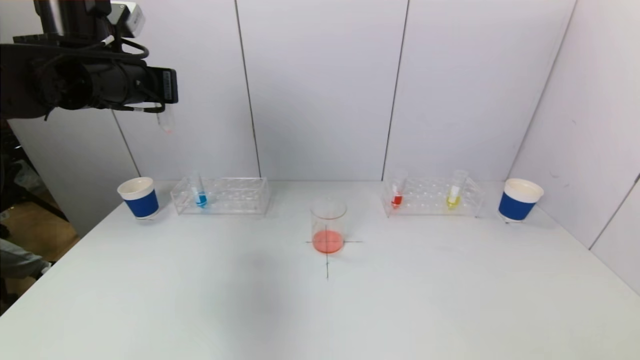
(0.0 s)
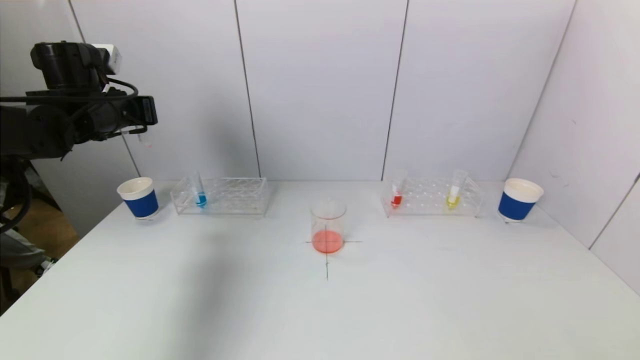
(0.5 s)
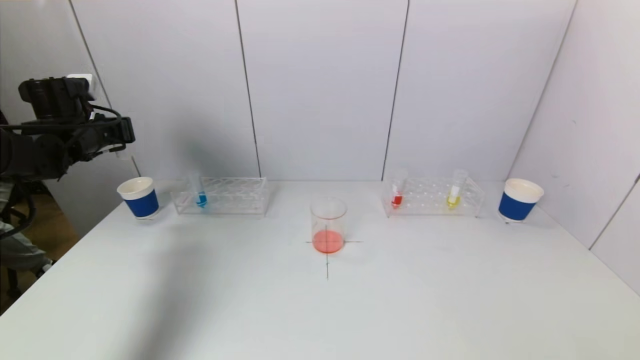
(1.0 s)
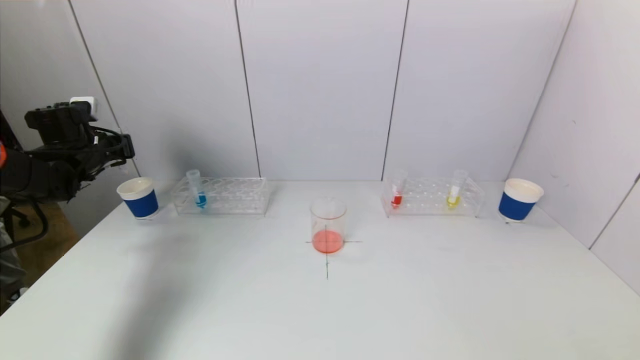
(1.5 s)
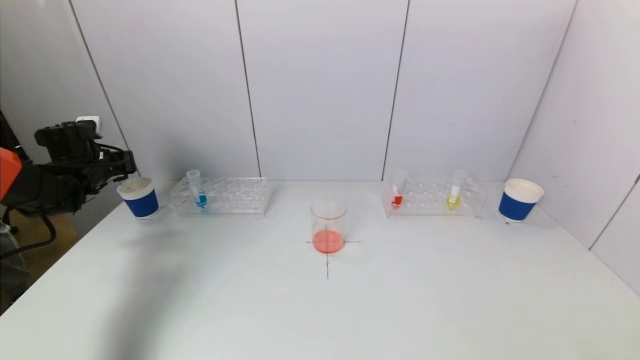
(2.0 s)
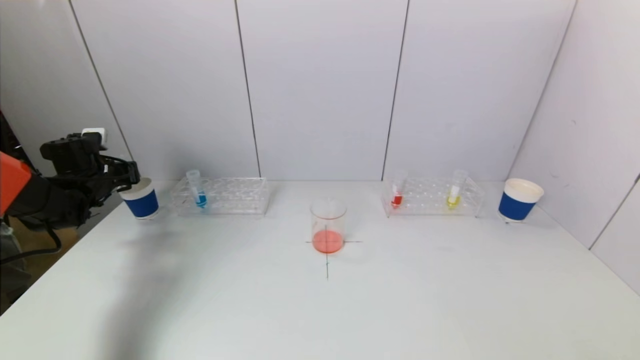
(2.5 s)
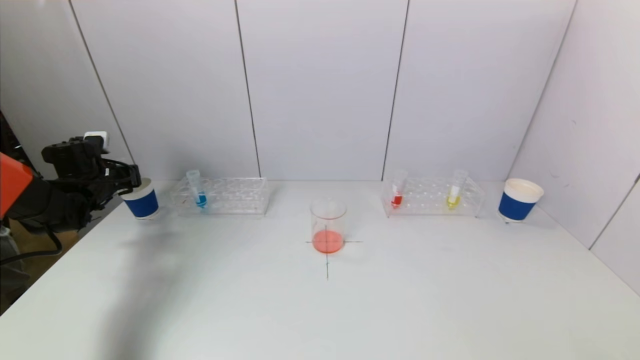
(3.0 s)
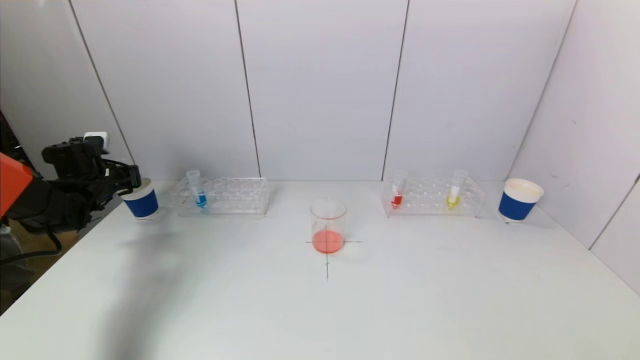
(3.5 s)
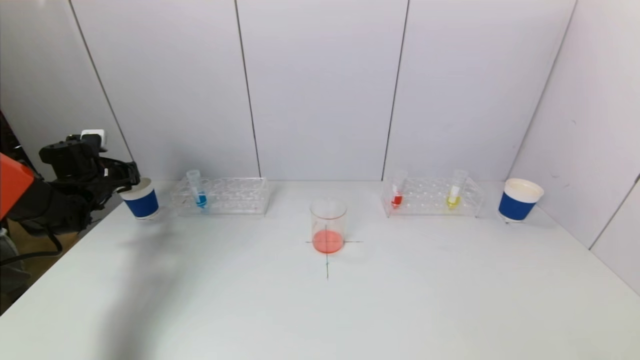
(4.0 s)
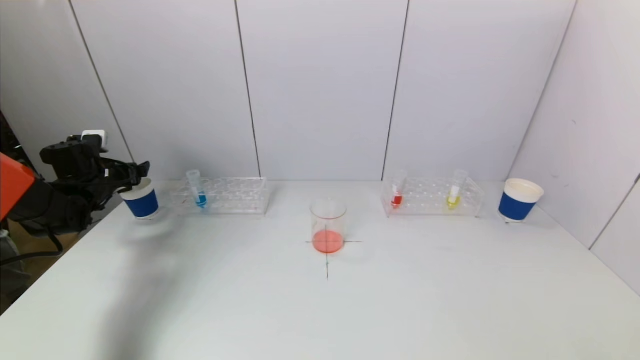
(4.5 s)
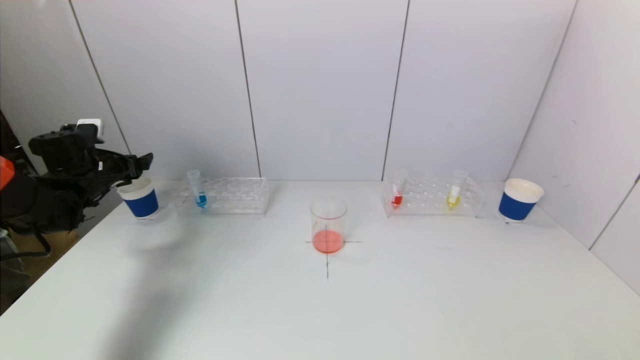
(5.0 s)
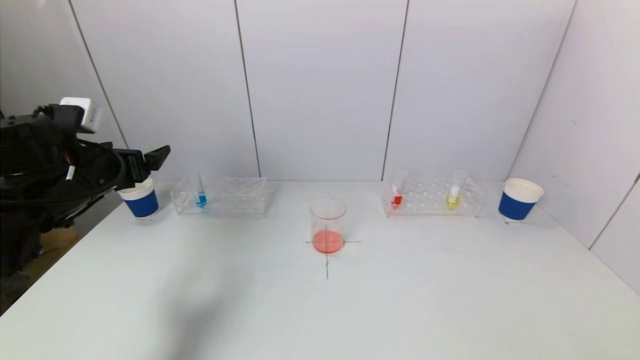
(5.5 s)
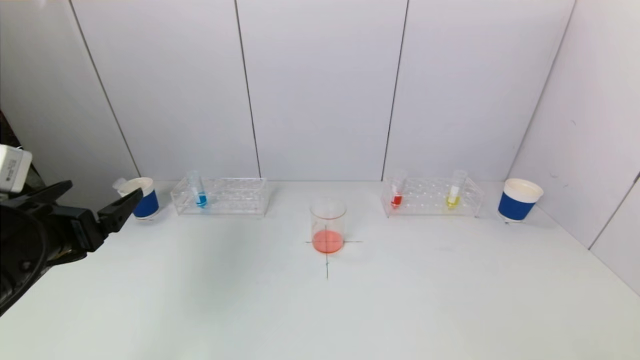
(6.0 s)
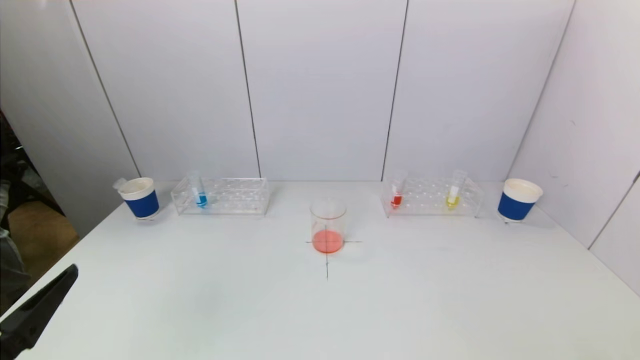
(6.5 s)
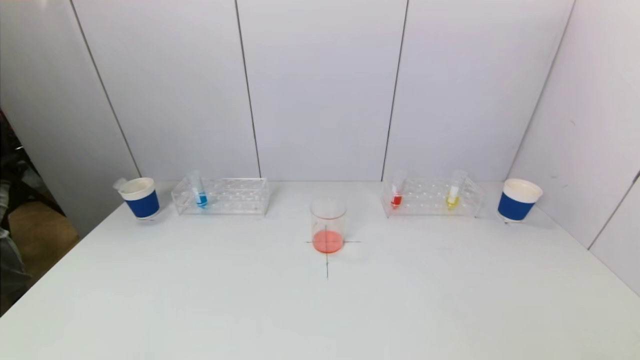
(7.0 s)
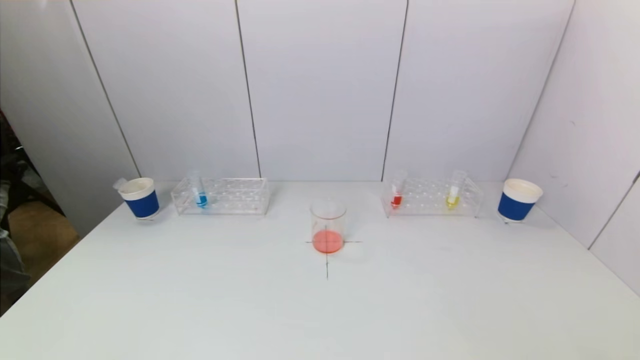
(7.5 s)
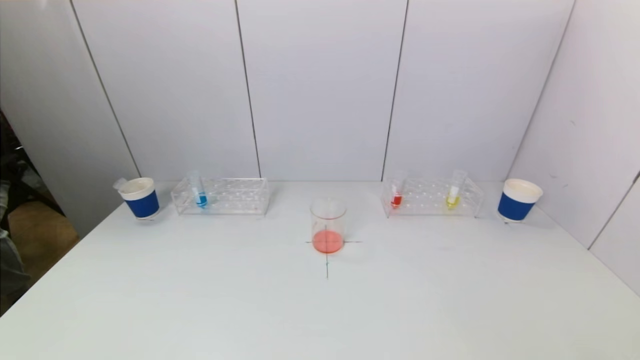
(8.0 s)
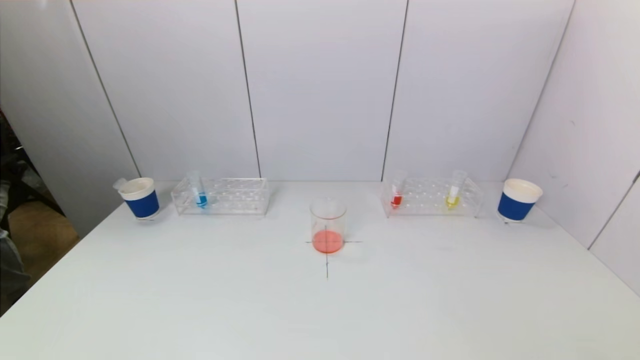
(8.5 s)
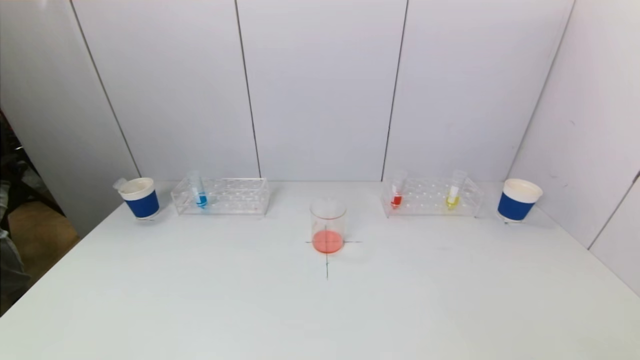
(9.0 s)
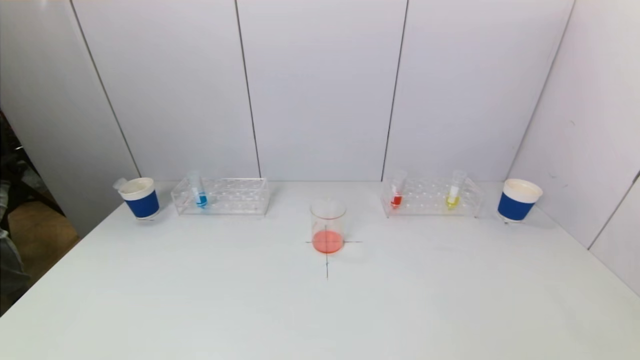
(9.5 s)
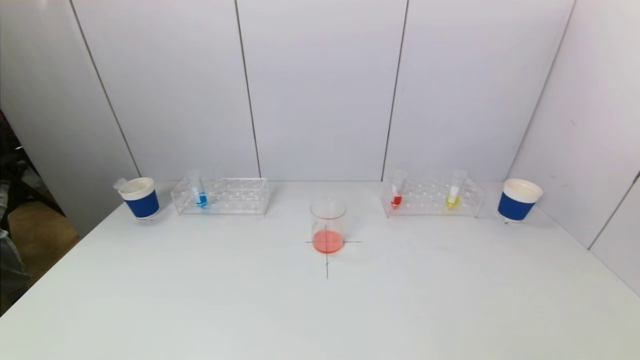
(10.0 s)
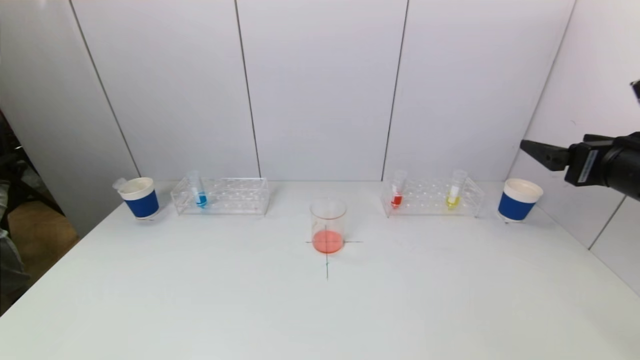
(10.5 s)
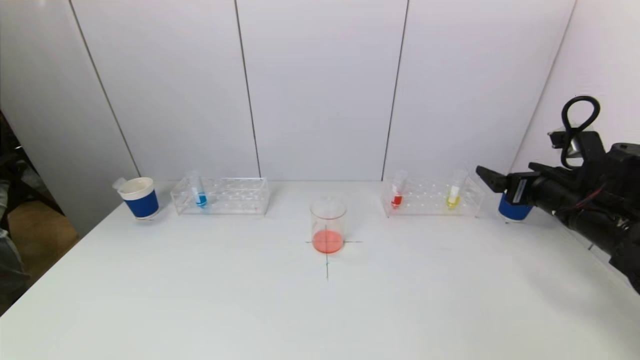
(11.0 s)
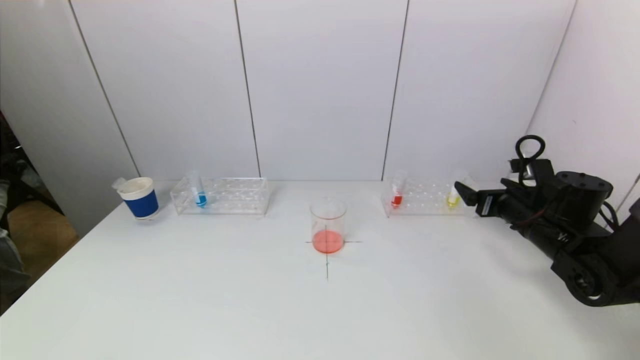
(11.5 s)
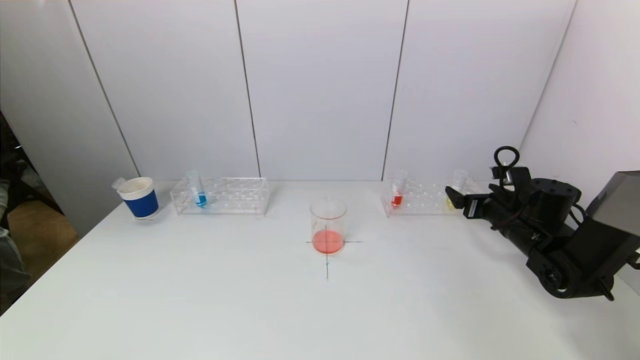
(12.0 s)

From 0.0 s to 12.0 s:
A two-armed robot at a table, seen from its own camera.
Task of the whole recording: pick up a test tube with pigment on left test tube rack and a test tube with pigment on right test tube rack by grippers and pour them into the beaker.
Step, from 0.0 s to 4.5 s: Place the test tube into the paper cup with the left gripper.
From 0.0 s to 2.0 s: The left gripper travels downward, to the left and forward by roughly 25 cm.
From 2.0 s to 4.0 s: There are only small adjustments of the grippers.
From 4.0 s to 6.0 s: The left gripper goes about 30 cm backward and to the right, and opens its fingers.
From 6.0 s to 8.0 s: The left gripper is displaced backward and downward by some 20 cm.
From 10.0 s to 12.0 s: The right gripper moves forward and downward, approximately 35 cm.

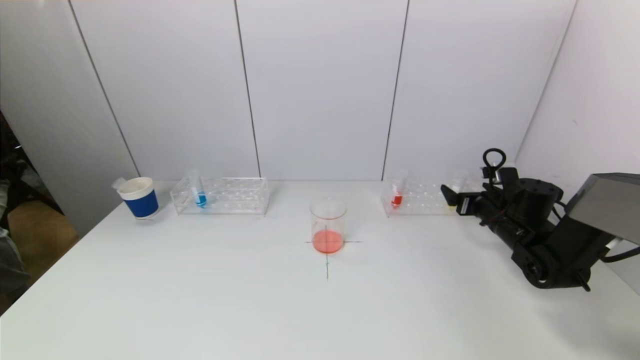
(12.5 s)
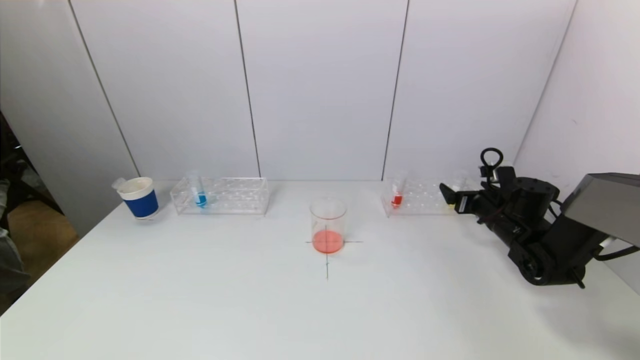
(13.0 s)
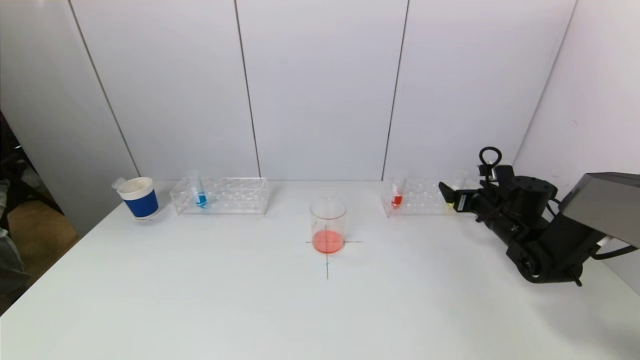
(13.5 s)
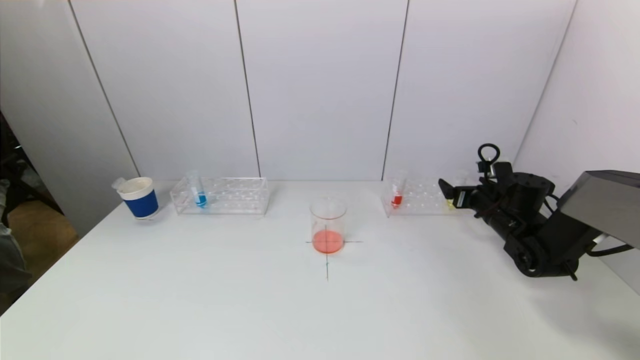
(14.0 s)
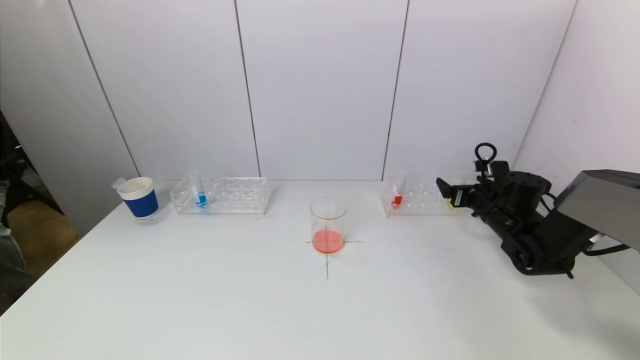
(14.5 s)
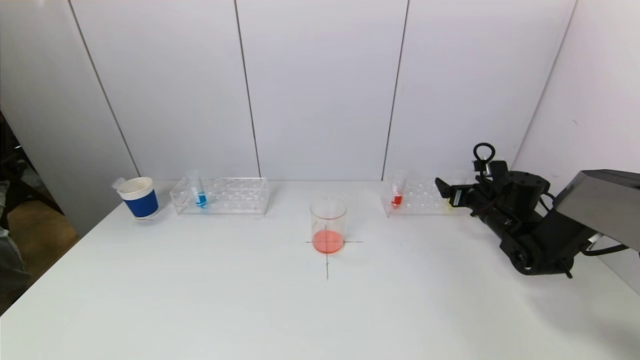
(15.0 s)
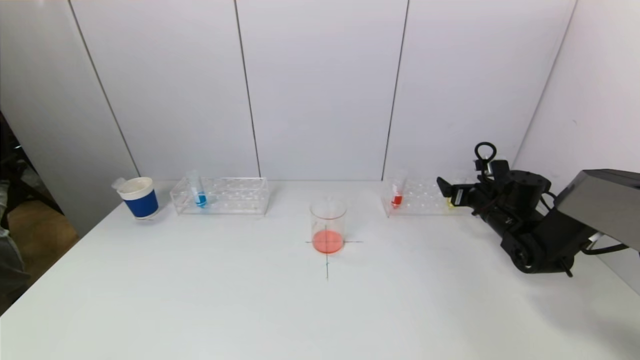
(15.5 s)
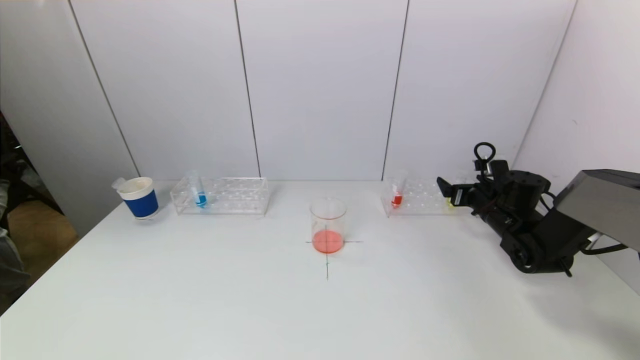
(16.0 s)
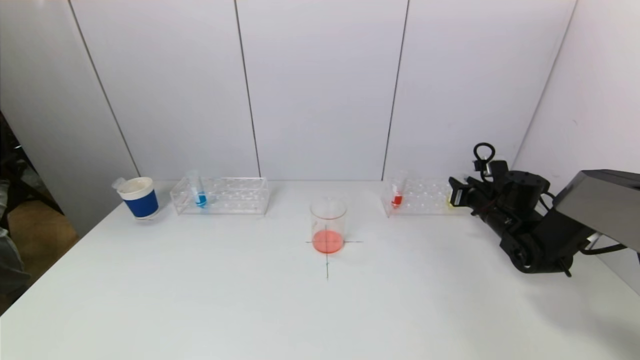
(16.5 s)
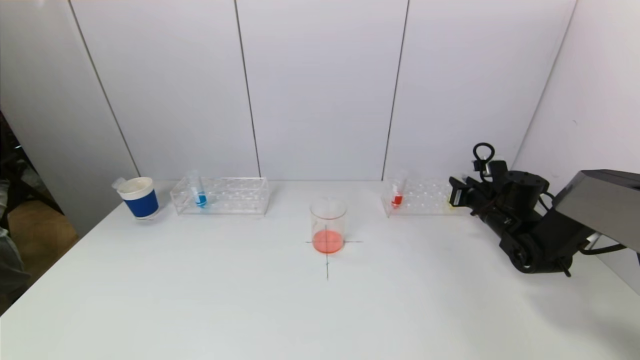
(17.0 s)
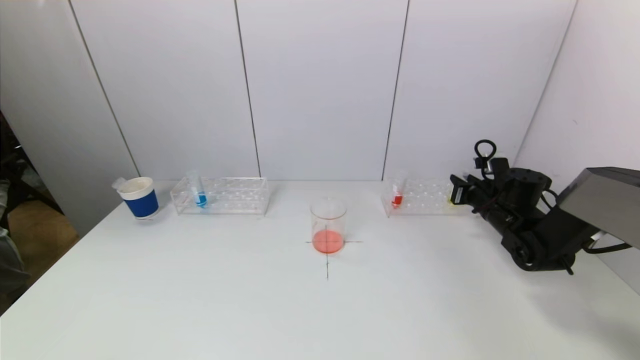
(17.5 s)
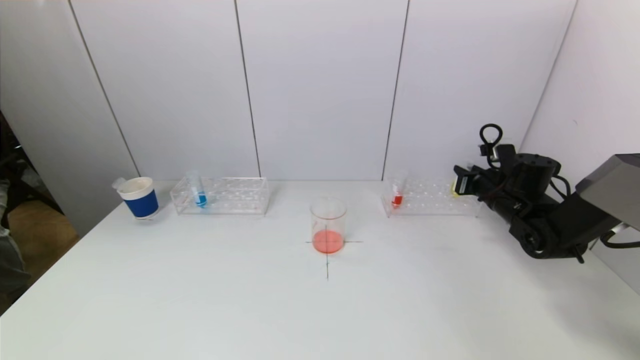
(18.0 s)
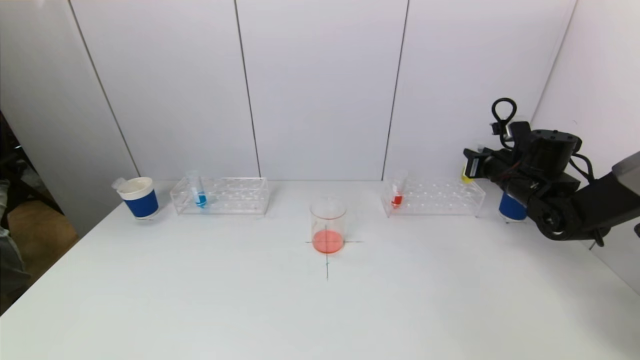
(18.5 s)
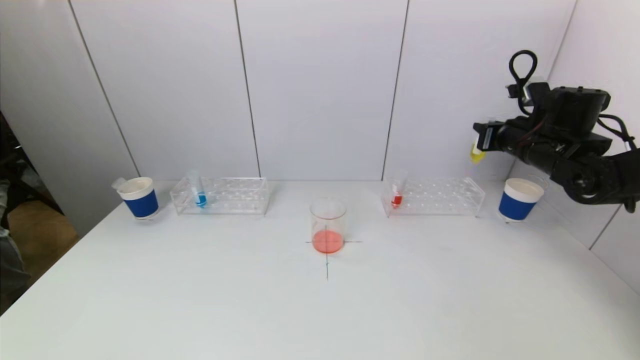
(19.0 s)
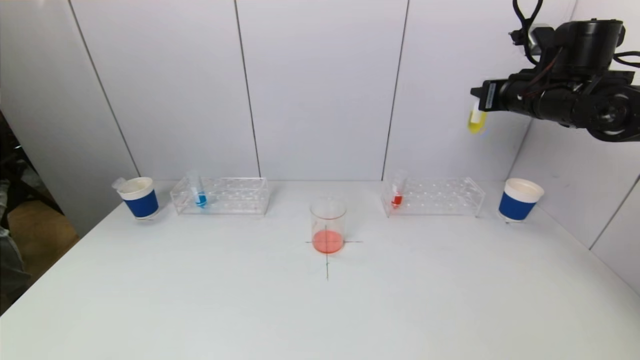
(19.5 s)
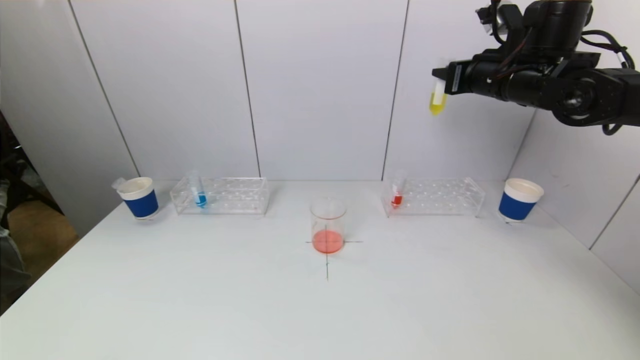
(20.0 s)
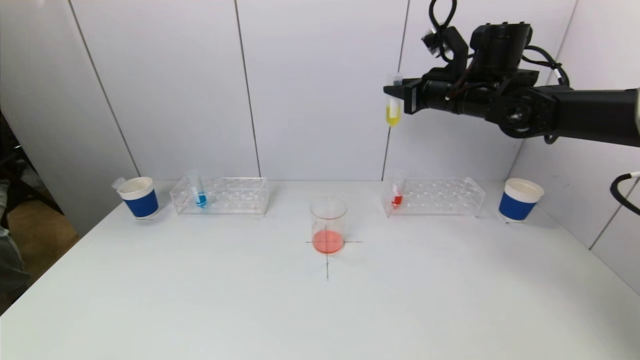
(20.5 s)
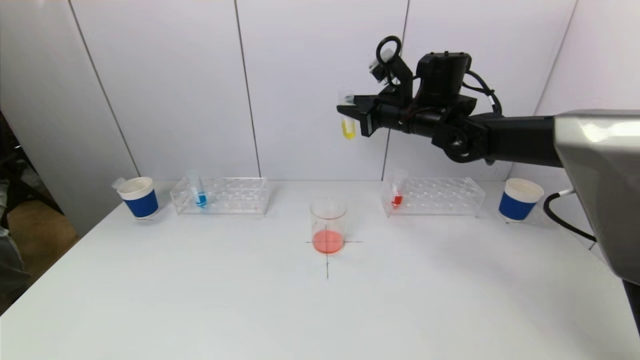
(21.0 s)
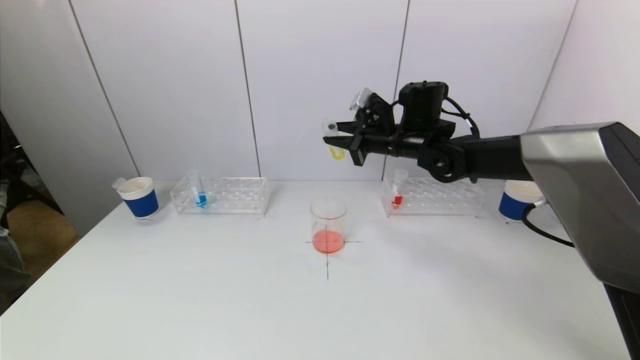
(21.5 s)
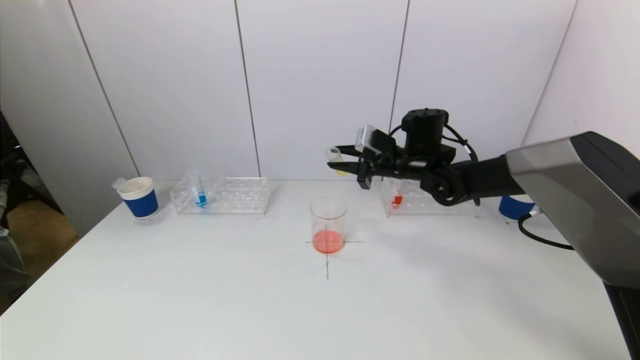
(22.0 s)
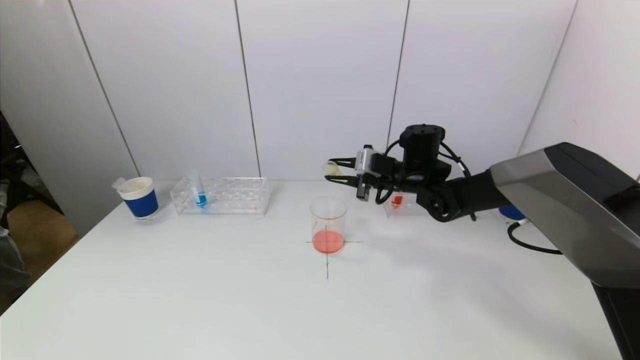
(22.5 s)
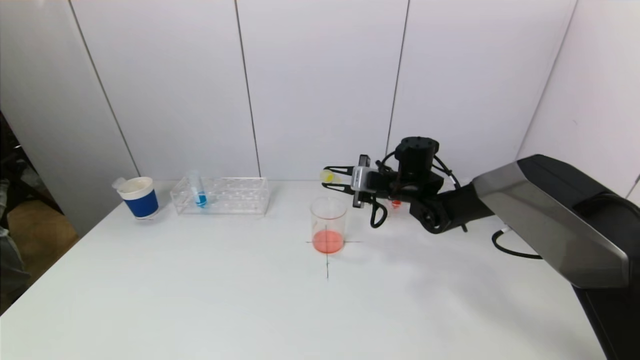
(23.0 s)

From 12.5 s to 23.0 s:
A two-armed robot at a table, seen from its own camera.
Task of the whole recording: pick up a test tube with pigment on left test tube rack and a test tube with pigment on right test tube rack by grippers and pour them into the beaker.
Step, from 12.5 s to 17.0 s: Grasp the yellow reagent with the right gripper.
From 12.5 s to 14.5 s: There are only small adjustments of the grippers.
From 14.5 s to 16.5 s: The right gripper closes its fingers.
From 16.5 s to 19.0 s: The right gripper shifts approximately 15 cm upward.
From 19.0 s to 21.0 s: The right gripper heads to the left, covering roughly 20 cm.
From 21.0 s to 23.0 s: The right gripper travels downward by roughly 15 cm.
